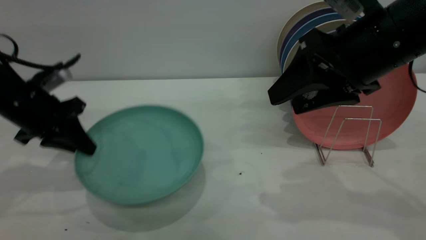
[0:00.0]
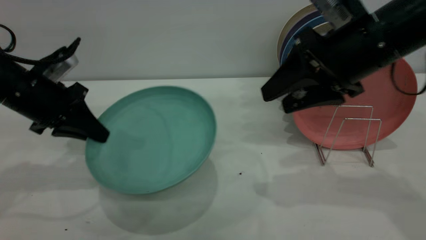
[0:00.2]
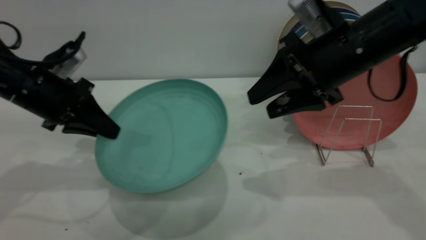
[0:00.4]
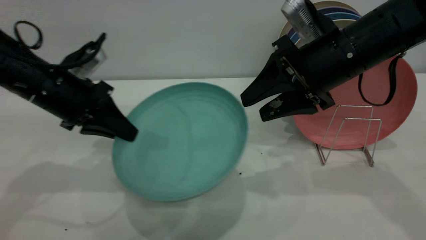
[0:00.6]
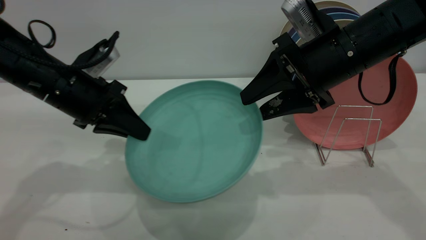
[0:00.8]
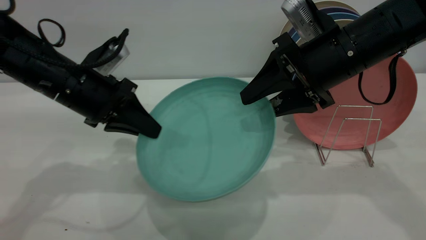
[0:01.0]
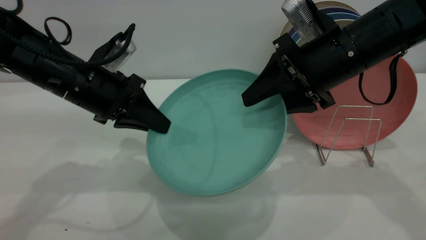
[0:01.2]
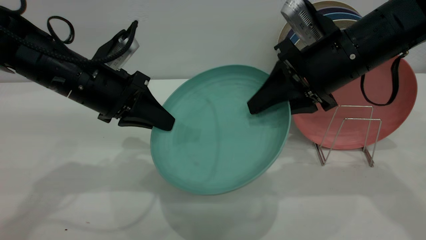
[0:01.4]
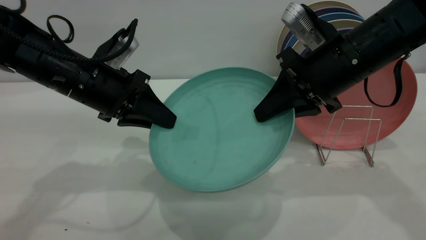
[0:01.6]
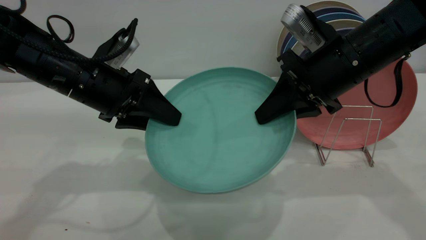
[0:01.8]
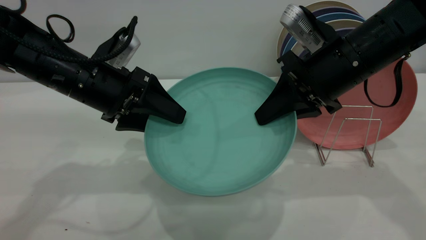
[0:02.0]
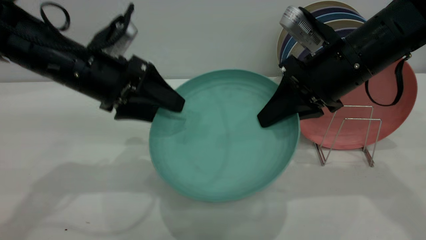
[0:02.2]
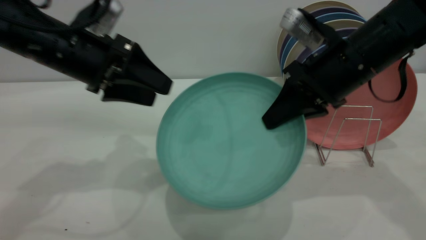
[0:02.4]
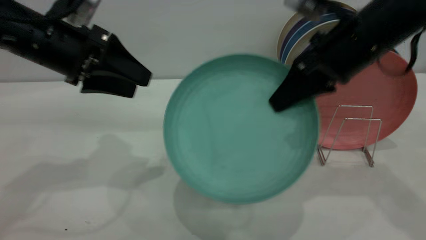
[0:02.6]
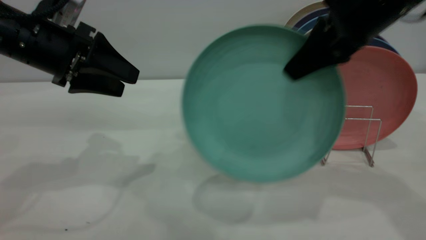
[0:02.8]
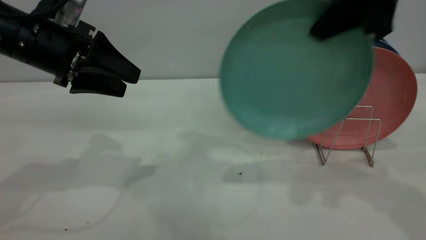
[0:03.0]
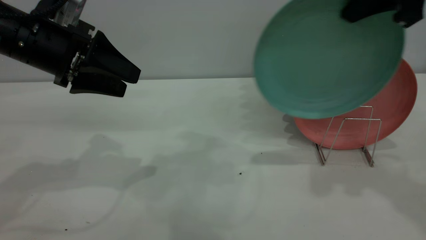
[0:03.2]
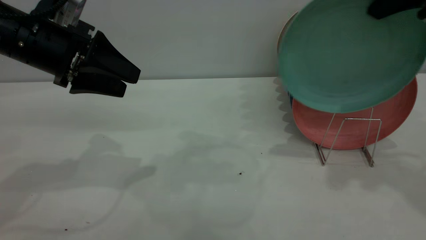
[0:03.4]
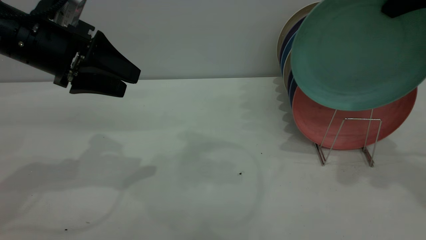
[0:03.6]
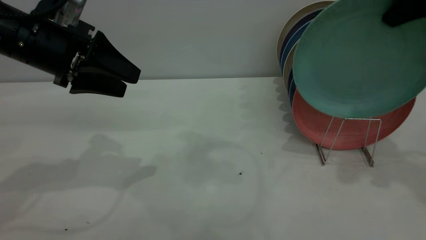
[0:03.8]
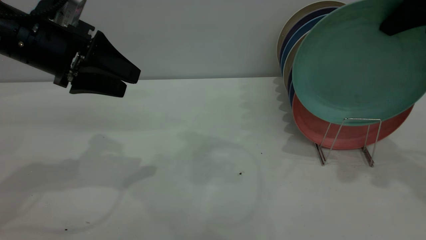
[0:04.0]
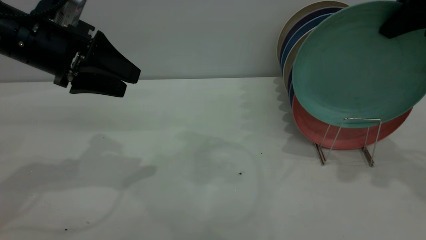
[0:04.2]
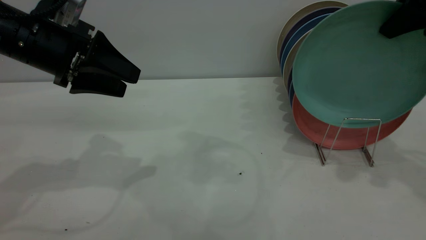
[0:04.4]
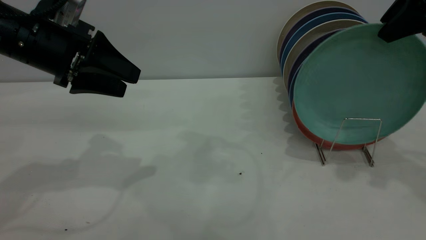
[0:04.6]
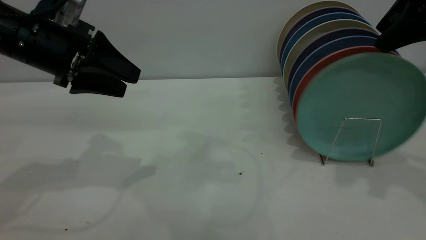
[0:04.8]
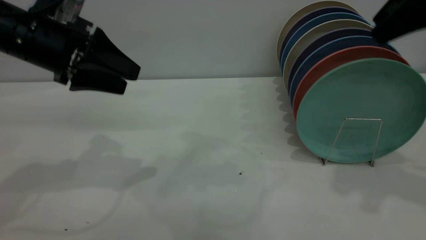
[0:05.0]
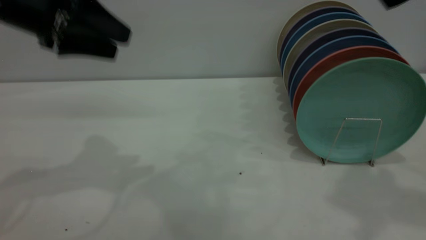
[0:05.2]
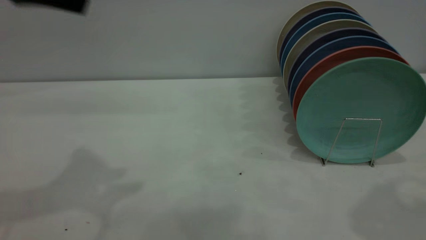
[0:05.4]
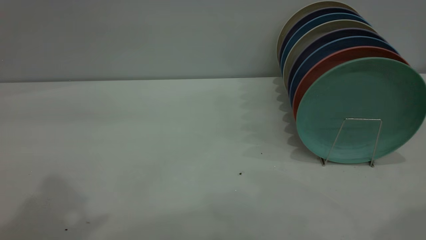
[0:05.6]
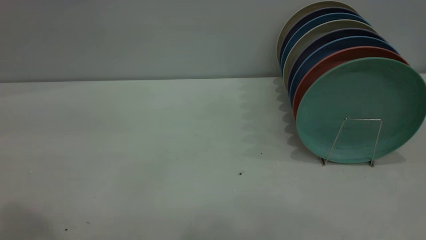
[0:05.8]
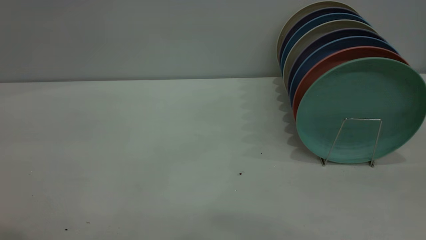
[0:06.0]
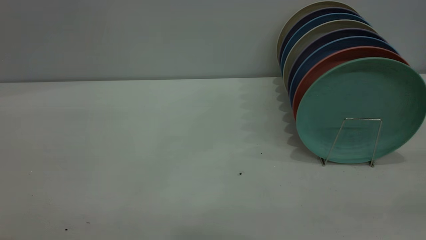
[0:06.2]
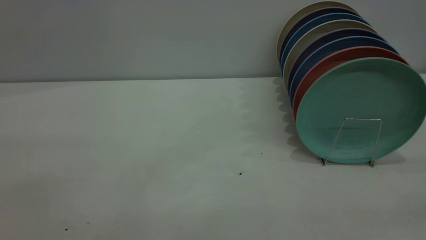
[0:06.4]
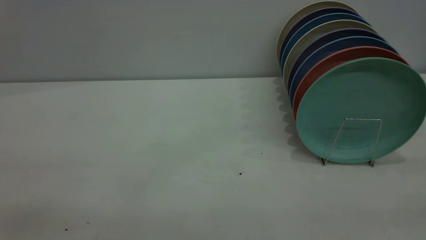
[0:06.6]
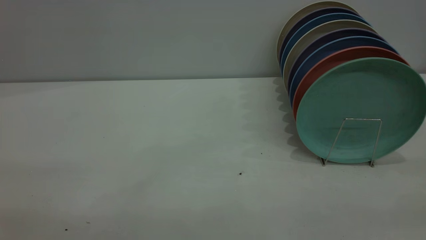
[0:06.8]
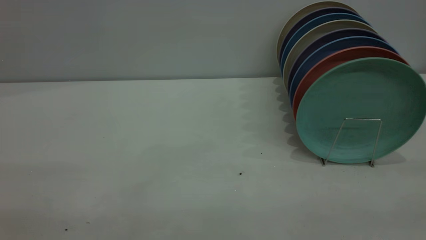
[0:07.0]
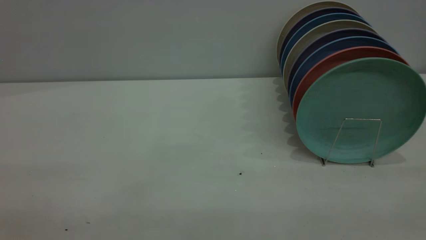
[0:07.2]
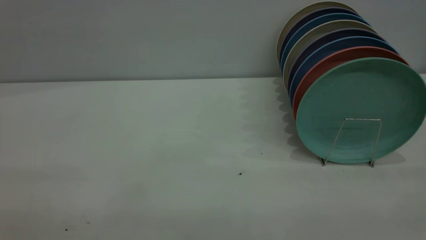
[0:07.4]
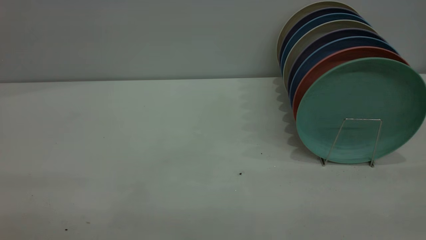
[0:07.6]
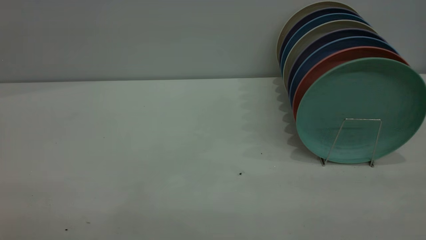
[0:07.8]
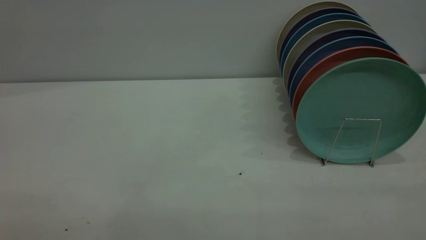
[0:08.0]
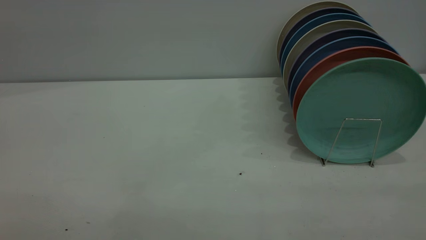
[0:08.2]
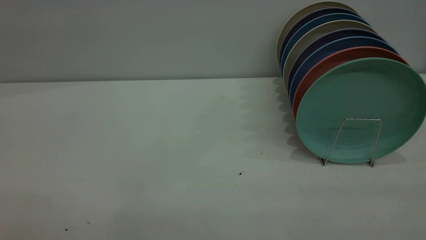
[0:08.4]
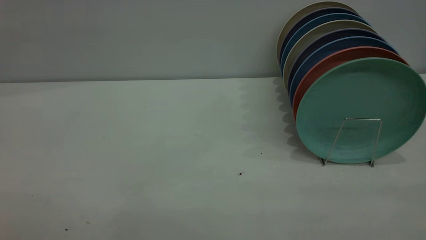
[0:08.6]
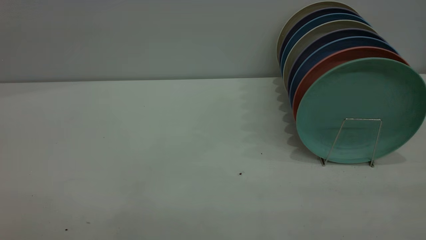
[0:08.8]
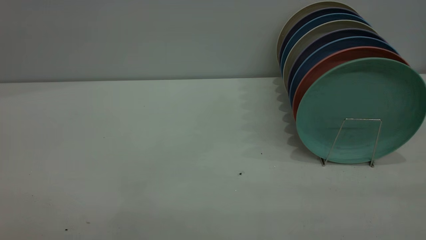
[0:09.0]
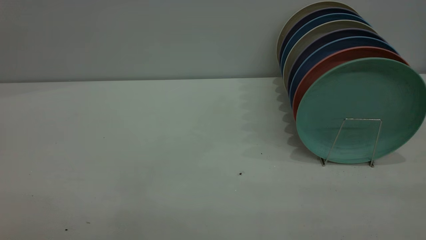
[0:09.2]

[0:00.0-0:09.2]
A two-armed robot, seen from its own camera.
Task of the whole recording: the left gripper grasp the green plate, the left gripper pass the green plate to the right gripper, and the right gripper place the green plate on the plate rack.
Step, 0:00.2 to 0:02.4: Pass the plate from the left gripper to the right gripper.
Step, 0:02.6 to 0:05.0: Place the plate on the shelf.
0:00.0 to 0:01.6: The right gripper changes place by roughly 5 cm, and closes; the left gripper moves to the right, roughly 10 cm.
0:01.6 to 0:03.0: The right gripper goes roughly 15 cm upward. The left gripper travels upward and to the left by roughly 10 cm, and opens.
0:03.0 to 0:04.6: The right gripper shifts approximately 10 cm to the right, and opens up.
0:04.6 to 0:06.2: The right gripper heads backward, covering some 30 cm. Meanwhile the left gripper travels backward and upward by some 25 cm.

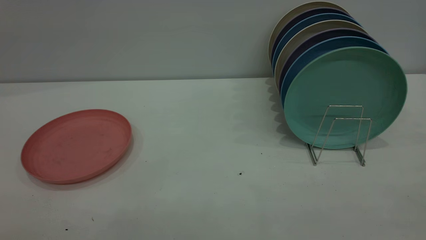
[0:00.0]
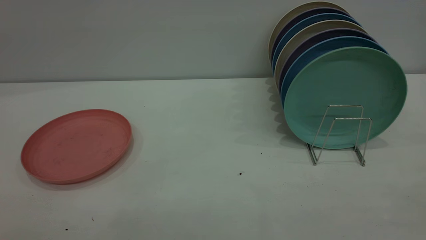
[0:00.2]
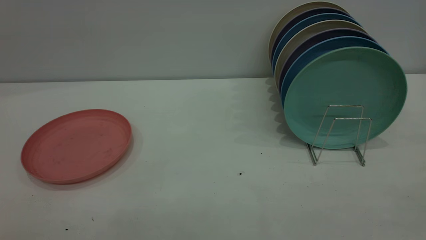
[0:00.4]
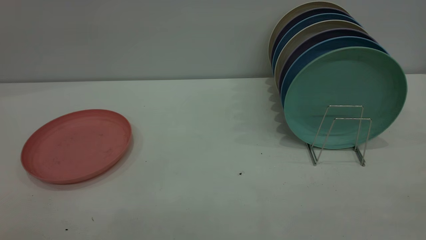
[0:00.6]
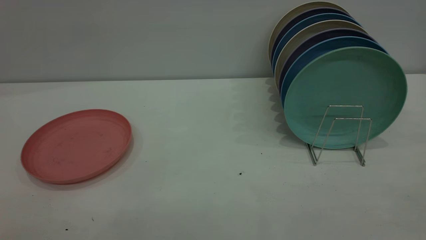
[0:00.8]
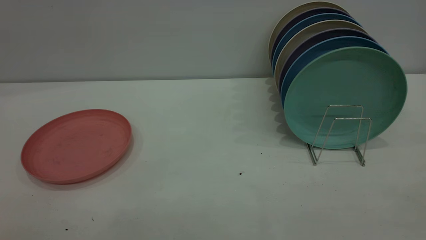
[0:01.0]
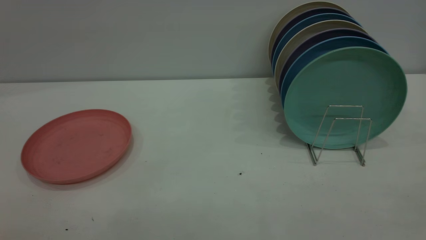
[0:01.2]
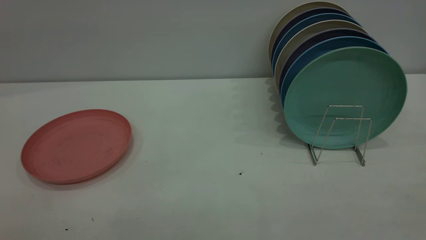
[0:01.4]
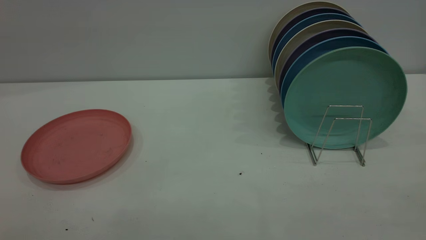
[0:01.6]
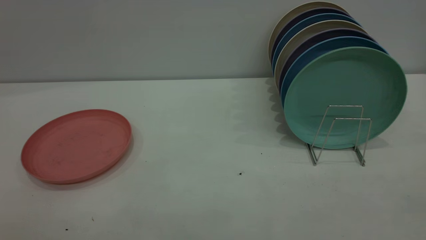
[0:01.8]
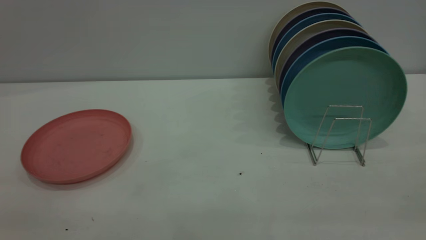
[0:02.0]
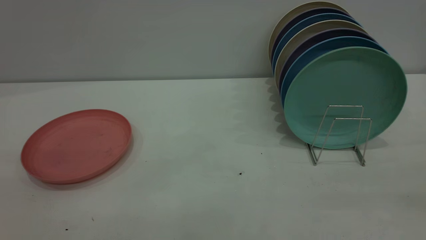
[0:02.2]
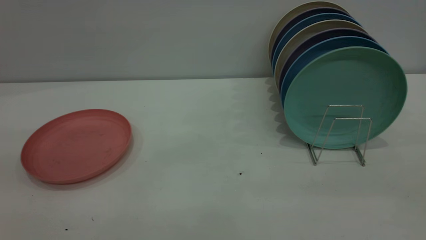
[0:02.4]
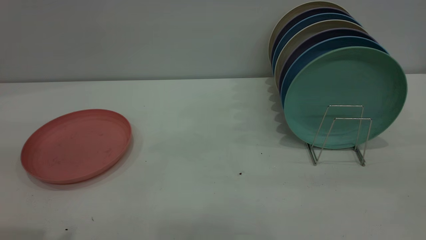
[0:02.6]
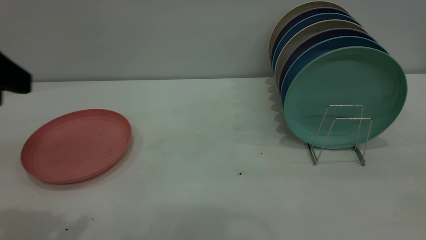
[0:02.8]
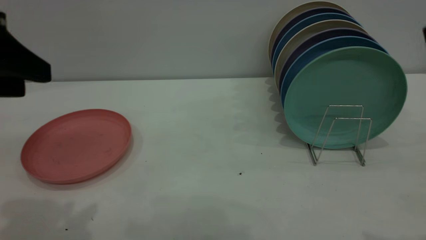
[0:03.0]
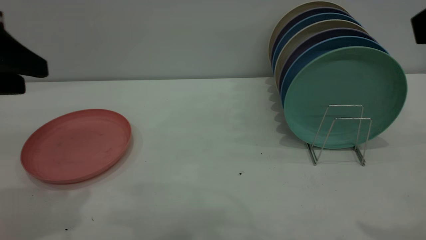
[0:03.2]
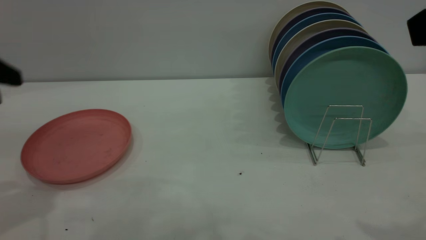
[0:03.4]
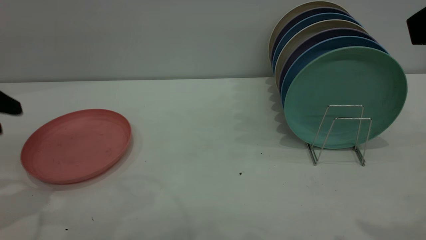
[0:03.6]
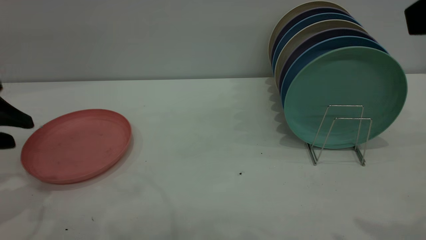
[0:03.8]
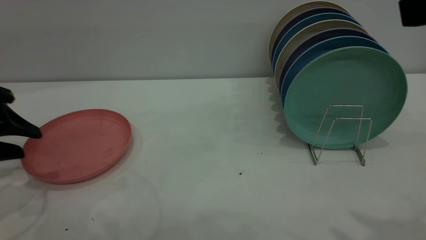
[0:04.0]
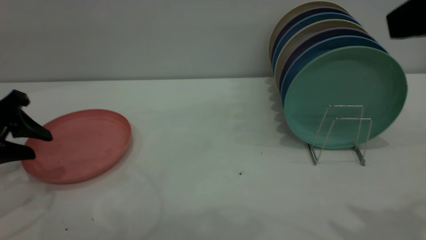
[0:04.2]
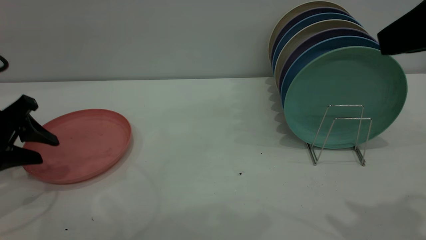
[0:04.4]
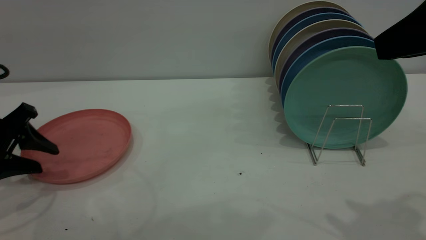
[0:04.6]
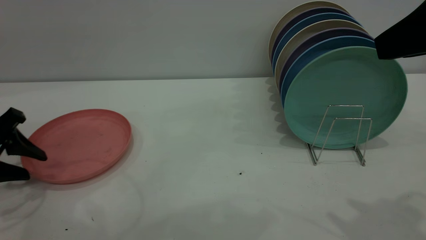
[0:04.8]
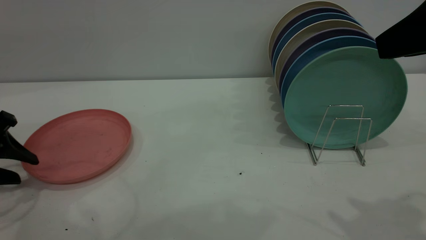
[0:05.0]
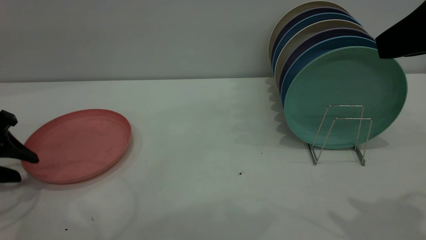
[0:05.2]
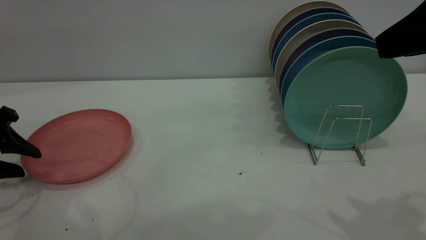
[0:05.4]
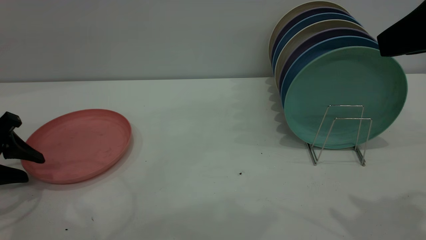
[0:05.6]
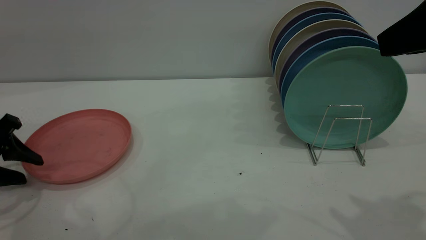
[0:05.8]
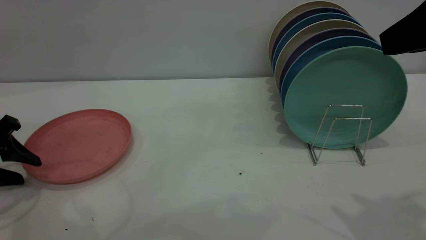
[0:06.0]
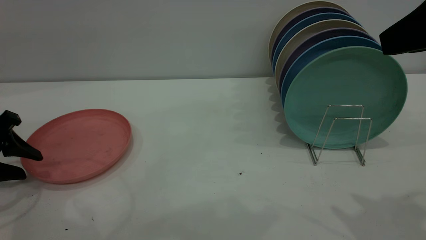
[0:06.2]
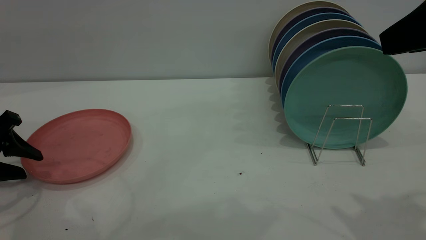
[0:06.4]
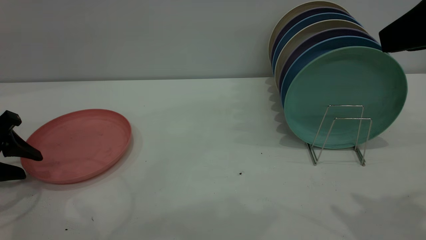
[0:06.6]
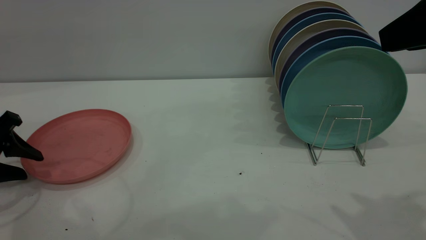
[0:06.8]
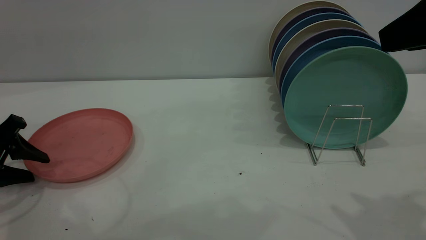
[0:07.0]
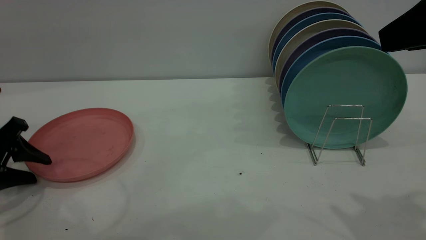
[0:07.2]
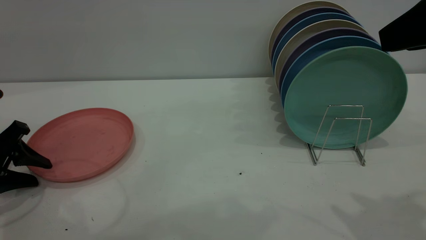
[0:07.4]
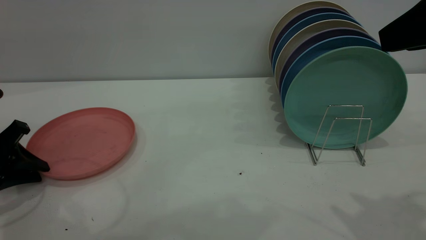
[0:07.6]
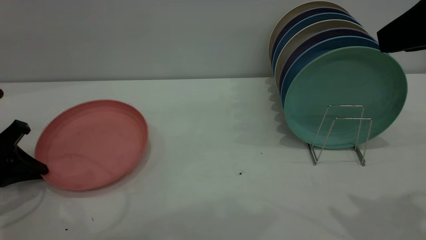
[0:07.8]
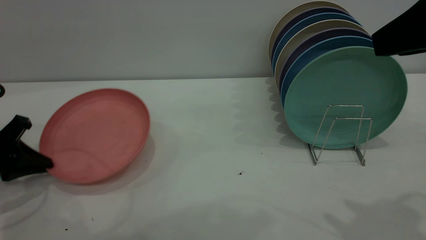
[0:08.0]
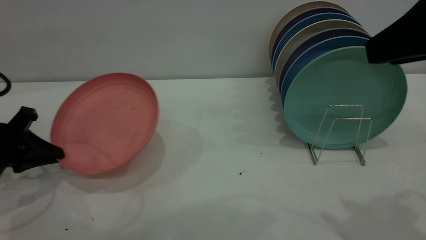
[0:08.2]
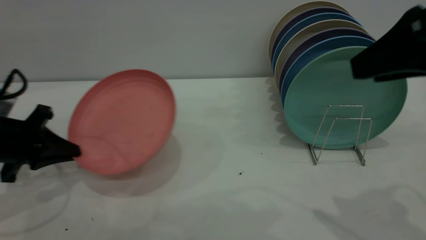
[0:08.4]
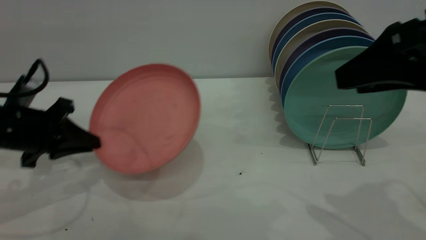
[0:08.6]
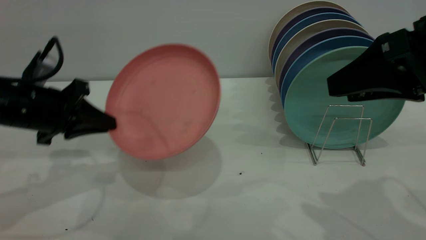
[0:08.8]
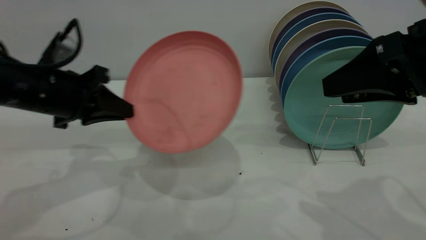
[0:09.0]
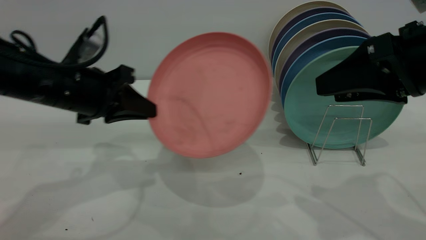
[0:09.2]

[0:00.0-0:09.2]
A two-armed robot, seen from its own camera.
Task of the whole recording: the left gripper grasp the pink plate, the left gripper pass the pink plate to the right gripper, and the right gripper place the pink plate on the plate rack.
Step, 0:00.0 to 0:07.8: Pick up the plate with the left gripper.
0:00.0 to 0:01.6: Both grippers stay about where they are.
0:01.6 to 0:03.0: The left gripper travels forward by about 25 cm.
0:03.0 to 0:04.6: The left gripper is displaced downward, to the left and forward by some 20 cm; the right gripper travels forward by roughly 5 cm.
0:04.6 to 0:06.2: The grippers stay close to where they were, moving slightly.
0:06.2 to 0:07.6: The left gripper closes.
0:07.6 to 0:09.2: The right gripper heads downward, covering some 10 cm, while the left gripper is displaced to the right and upward by some 20 cm.
